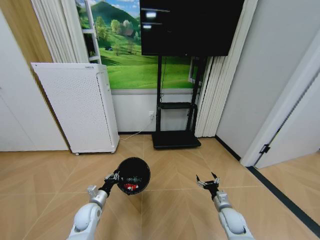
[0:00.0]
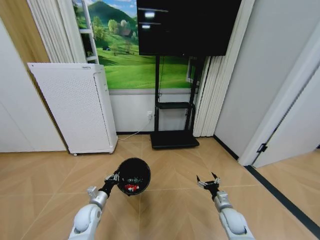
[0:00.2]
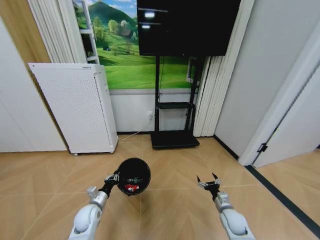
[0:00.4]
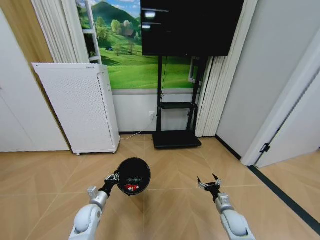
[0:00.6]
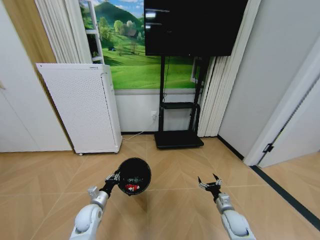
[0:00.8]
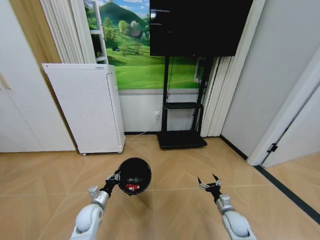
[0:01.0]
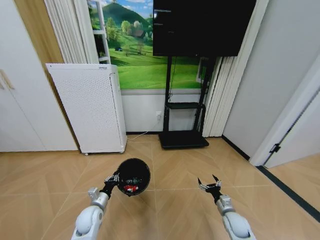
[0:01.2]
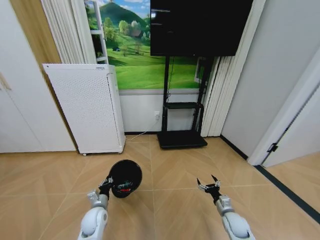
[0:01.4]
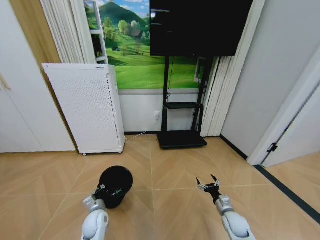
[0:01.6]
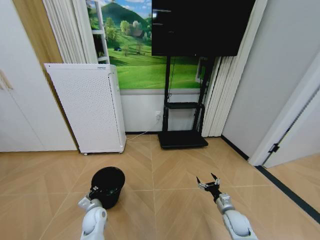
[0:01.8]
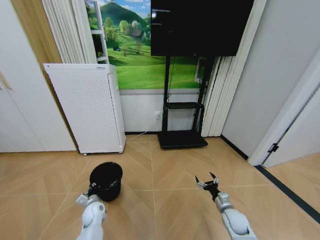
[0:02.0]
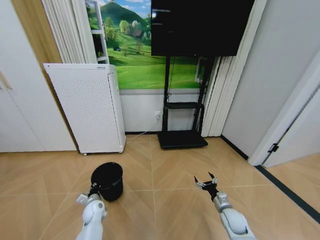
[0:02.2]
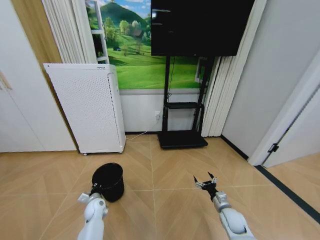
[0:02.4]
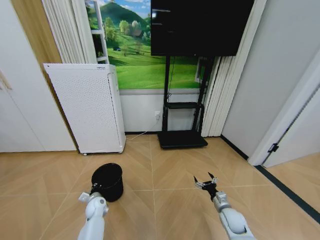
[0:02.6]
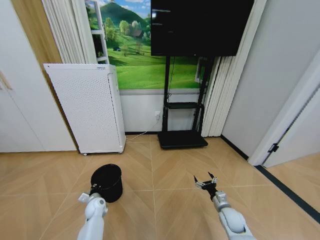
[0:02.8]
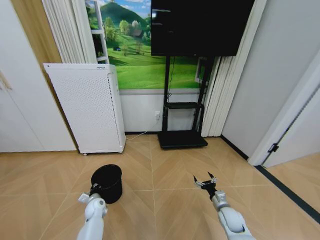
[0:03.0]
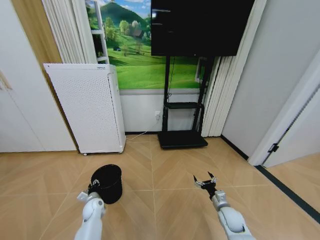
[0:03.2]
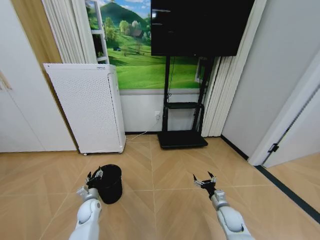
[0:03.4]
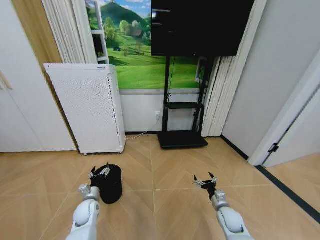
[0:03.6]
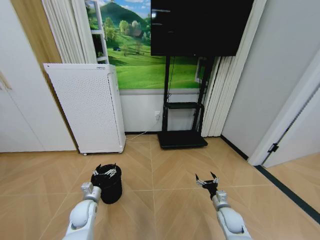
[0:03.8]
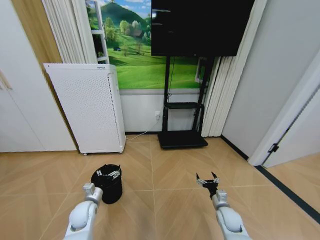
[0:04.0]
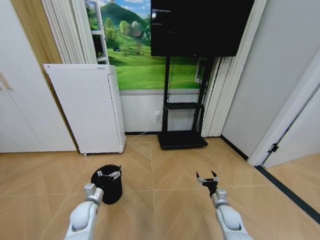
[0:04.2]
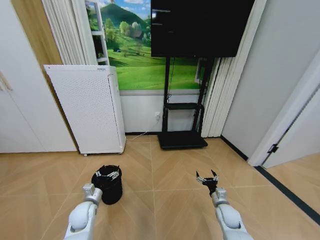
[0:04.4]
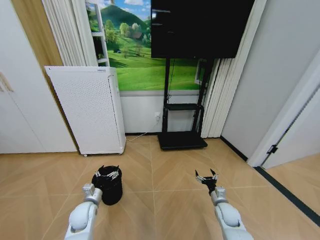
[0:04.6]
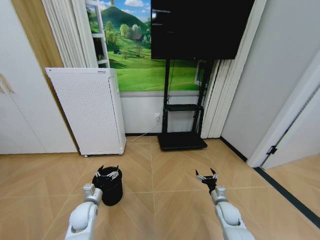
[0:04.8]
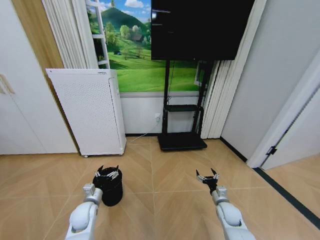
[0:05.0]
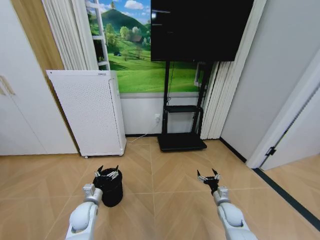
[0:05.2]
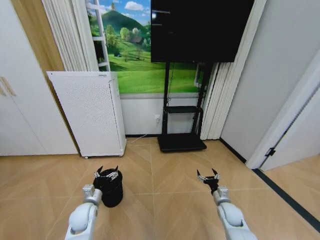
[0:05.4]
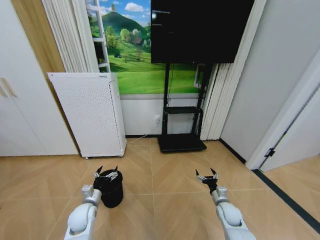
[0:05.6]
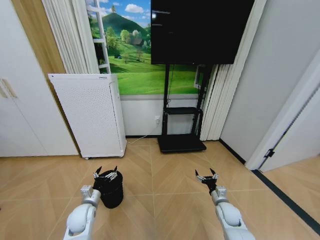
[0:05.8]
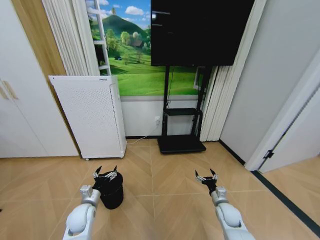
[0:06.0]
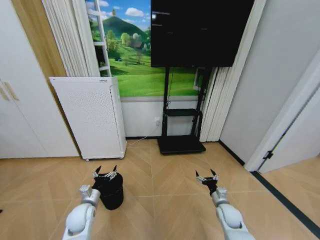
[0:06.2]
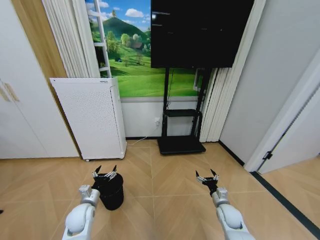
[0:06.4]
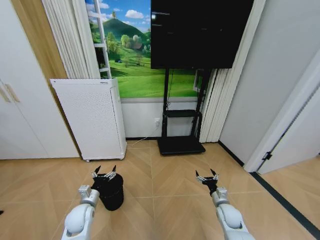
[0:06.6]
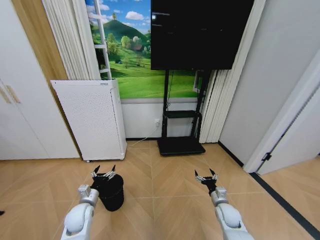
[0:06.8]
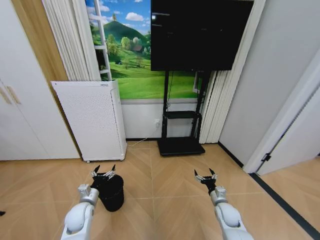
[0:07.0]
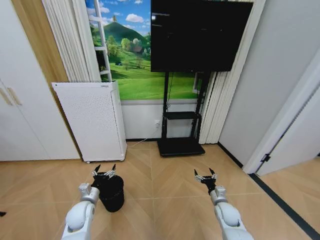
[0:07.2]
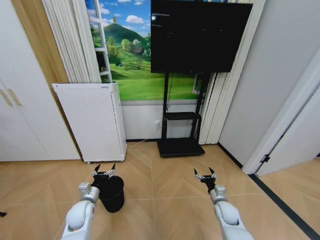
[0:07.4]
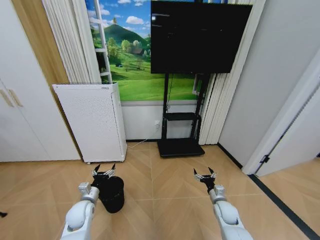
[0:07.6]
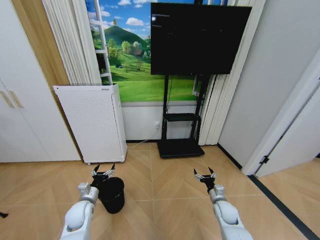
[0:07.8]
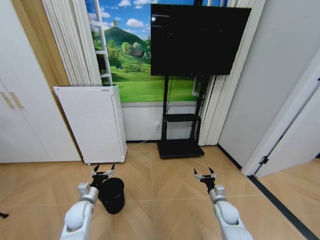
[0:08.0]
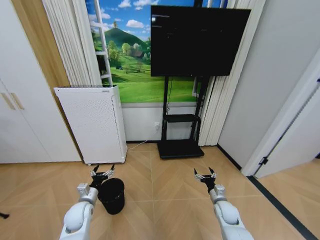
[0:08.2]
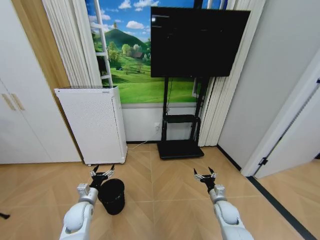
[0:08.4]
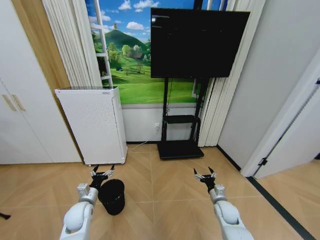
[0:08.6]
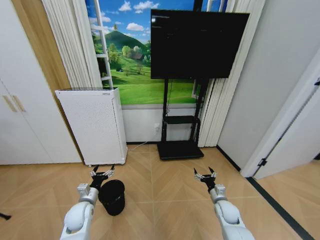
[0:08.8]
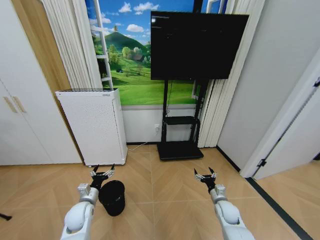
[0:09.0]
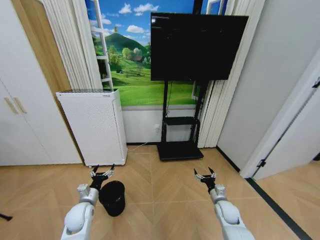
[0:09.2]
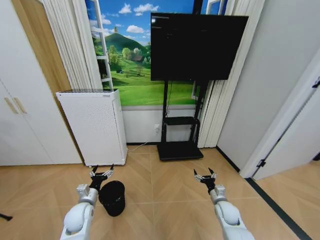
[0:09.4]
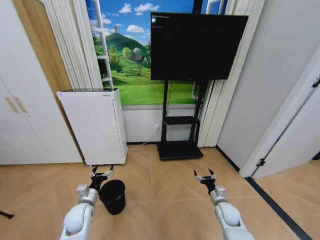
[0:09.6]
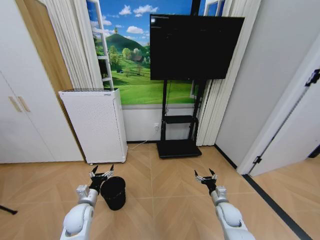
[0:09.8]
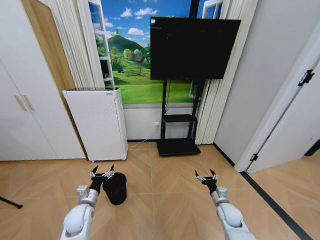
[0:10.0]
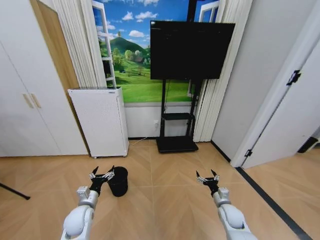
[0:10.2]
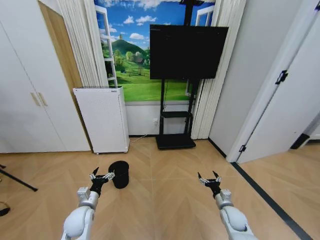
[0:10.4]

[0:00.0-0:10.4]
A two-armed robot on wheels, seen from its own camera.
Task of the whole recording: Pick up the trash bin and place the garbage on the floor into it.
0:01.4 to 0:03.0: The left gripper heads downward and forward, covering some 10 cm.
0:03.0 to 0:04.4: The left gripper goes about 10 cm upward and backward, and opens up.
0:04.4 to 0:06.0: Both grippers stay about where they are.
0:06.0 to 0:07.4: The grippers move only a little.
0:07.4 to 0:09.0: Both grippers stay about where they are.

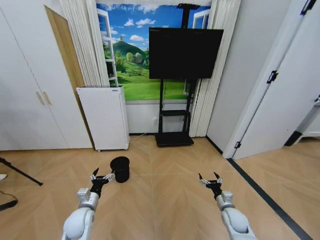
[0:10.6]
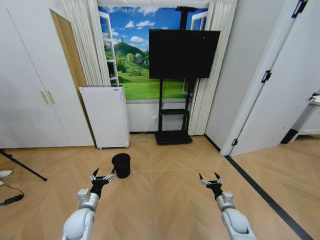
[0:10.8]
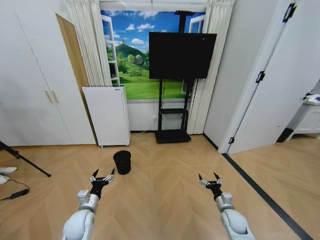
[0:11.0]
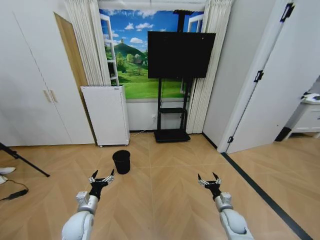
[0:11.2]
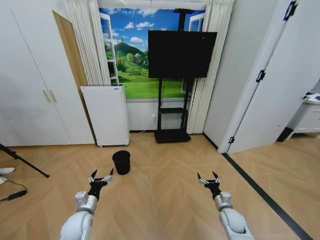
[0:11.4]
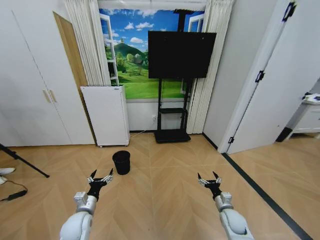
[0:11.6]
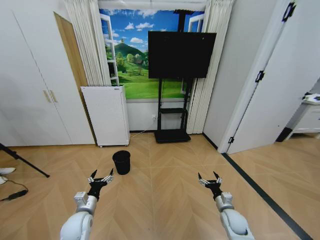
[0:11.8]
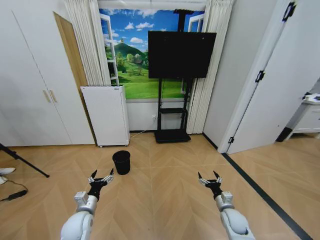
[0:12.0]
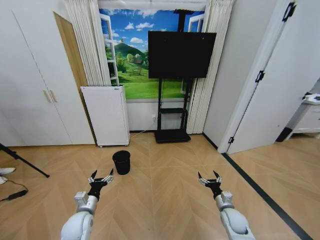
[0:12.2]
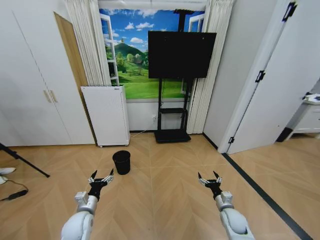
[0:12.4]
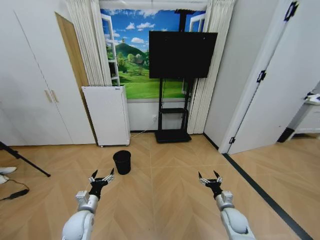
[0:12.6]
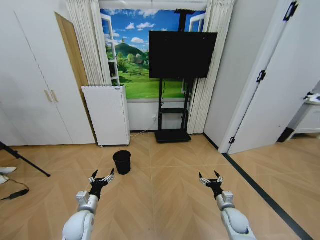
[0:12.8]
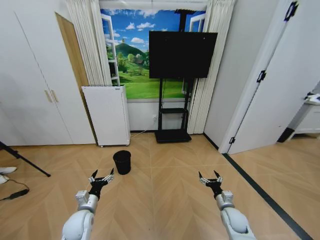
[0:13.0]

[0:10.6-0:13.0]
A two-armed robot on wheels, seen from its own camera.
Task of the whole recording: Pick up the trash bin and place the garbage on the floor into it.
0:10.6 to 0:11.8: The grippers move only a little.
0:11.8 to 0:13.0: Neither gripper changes place.
